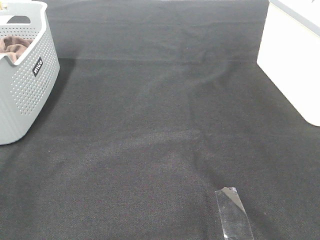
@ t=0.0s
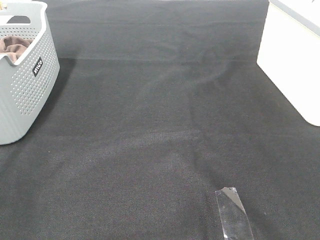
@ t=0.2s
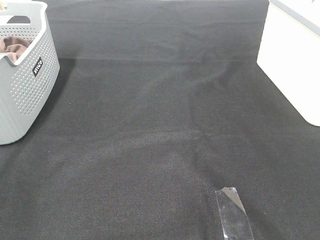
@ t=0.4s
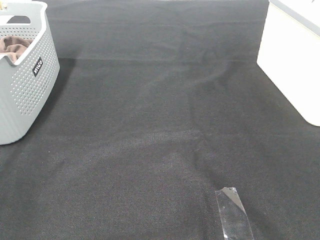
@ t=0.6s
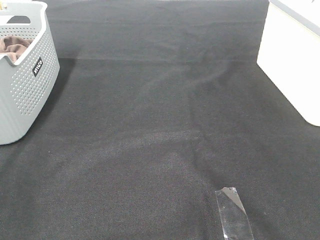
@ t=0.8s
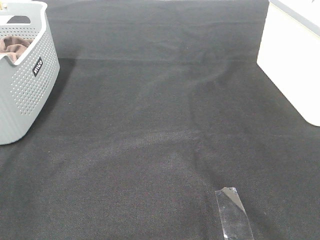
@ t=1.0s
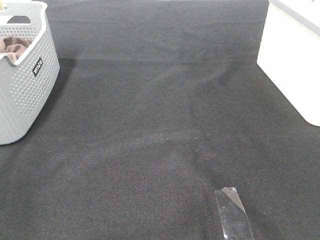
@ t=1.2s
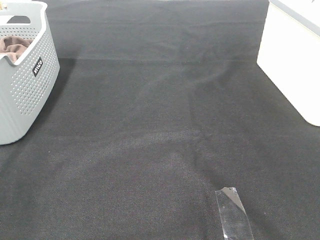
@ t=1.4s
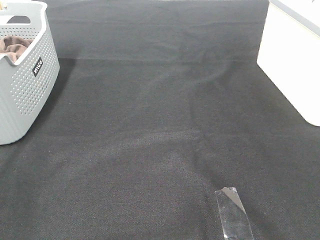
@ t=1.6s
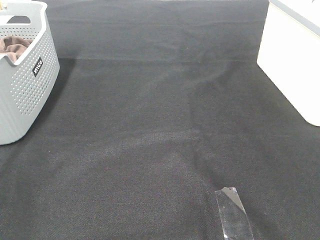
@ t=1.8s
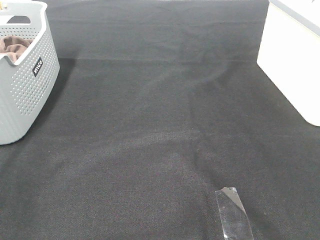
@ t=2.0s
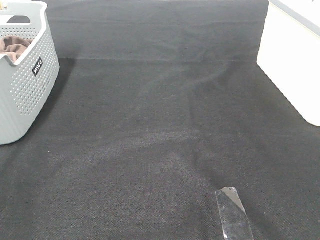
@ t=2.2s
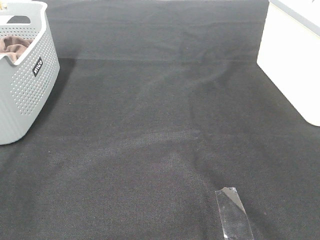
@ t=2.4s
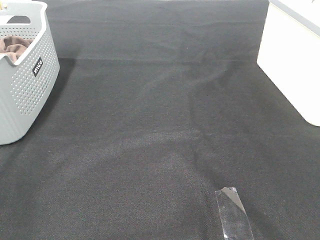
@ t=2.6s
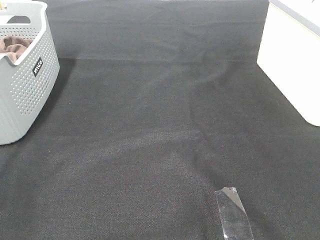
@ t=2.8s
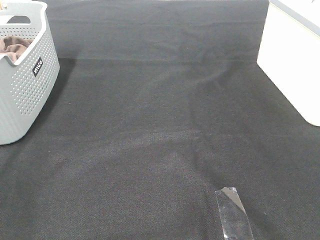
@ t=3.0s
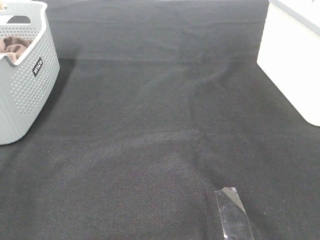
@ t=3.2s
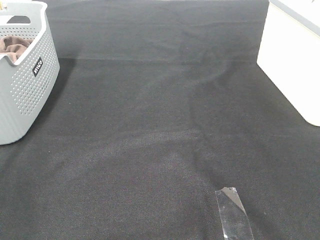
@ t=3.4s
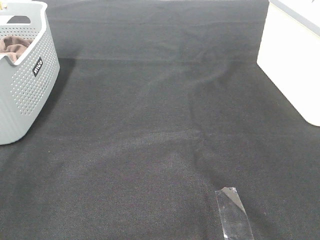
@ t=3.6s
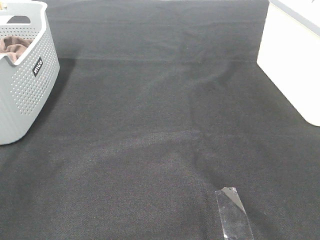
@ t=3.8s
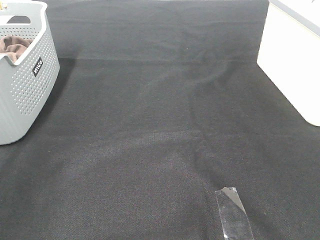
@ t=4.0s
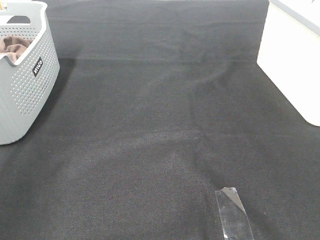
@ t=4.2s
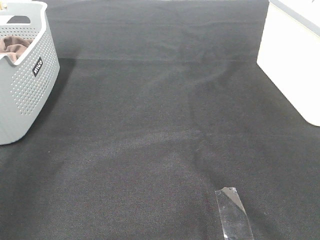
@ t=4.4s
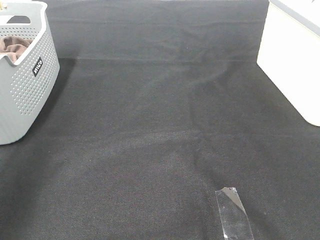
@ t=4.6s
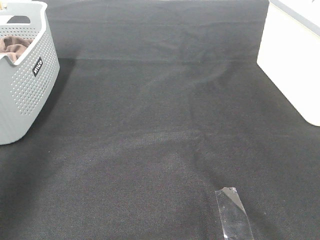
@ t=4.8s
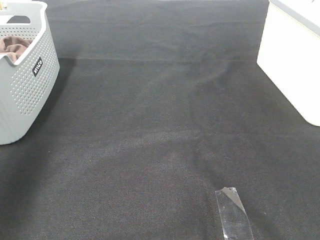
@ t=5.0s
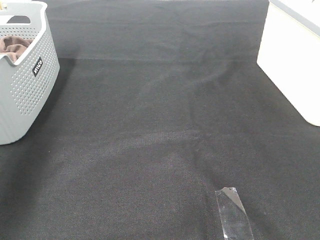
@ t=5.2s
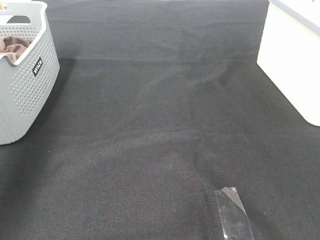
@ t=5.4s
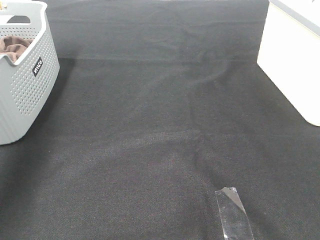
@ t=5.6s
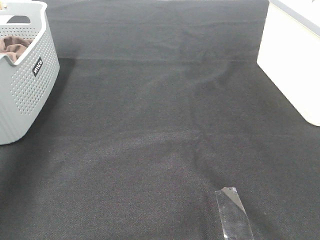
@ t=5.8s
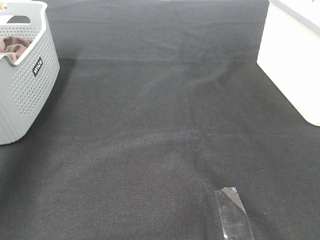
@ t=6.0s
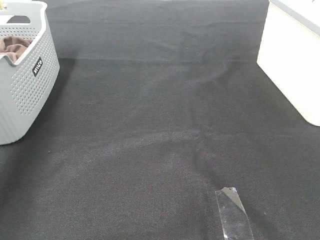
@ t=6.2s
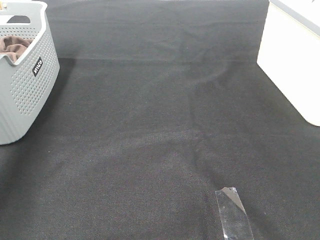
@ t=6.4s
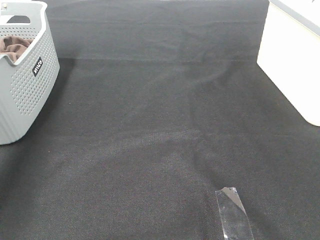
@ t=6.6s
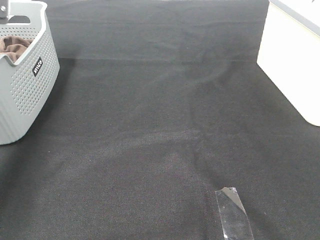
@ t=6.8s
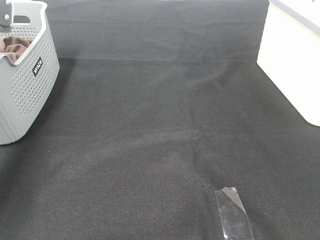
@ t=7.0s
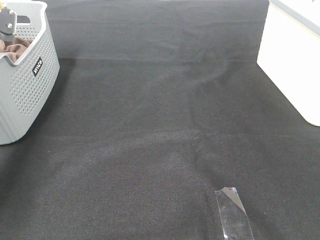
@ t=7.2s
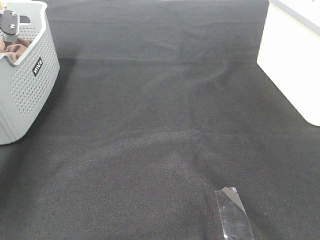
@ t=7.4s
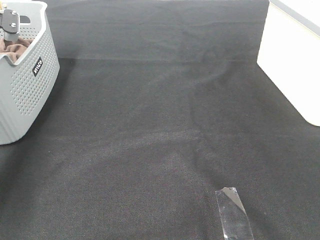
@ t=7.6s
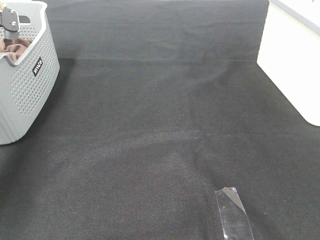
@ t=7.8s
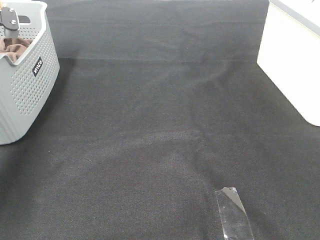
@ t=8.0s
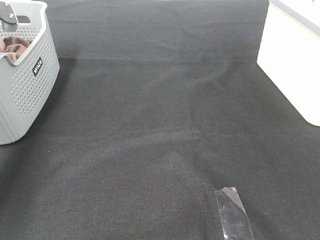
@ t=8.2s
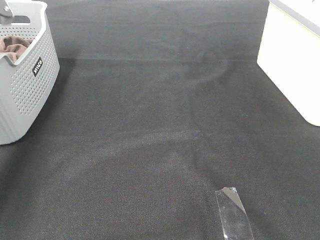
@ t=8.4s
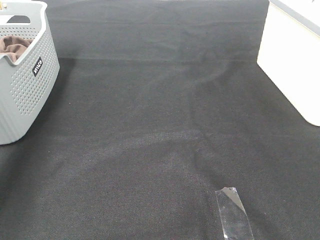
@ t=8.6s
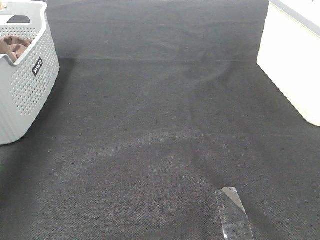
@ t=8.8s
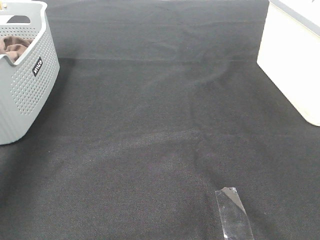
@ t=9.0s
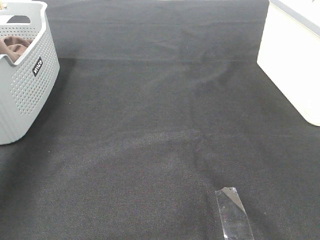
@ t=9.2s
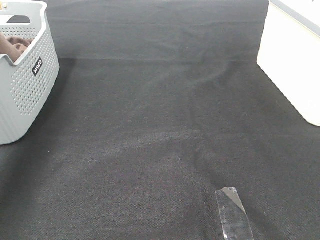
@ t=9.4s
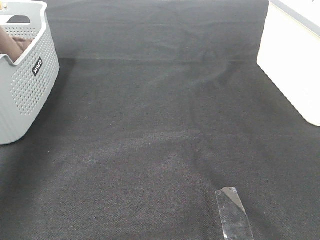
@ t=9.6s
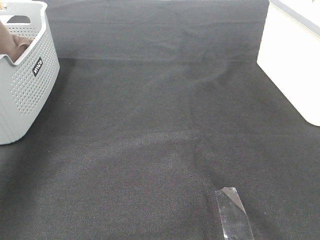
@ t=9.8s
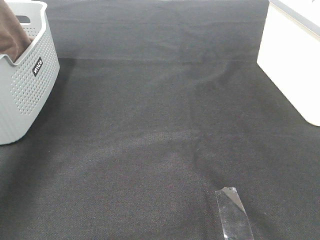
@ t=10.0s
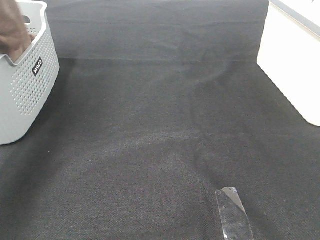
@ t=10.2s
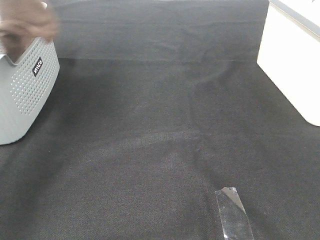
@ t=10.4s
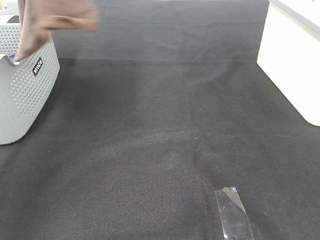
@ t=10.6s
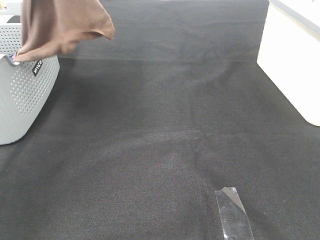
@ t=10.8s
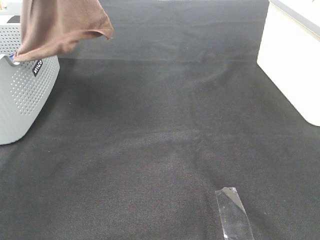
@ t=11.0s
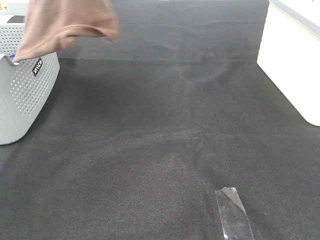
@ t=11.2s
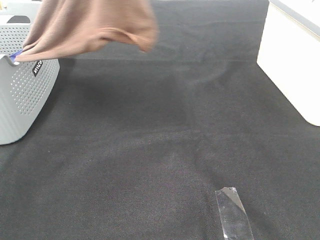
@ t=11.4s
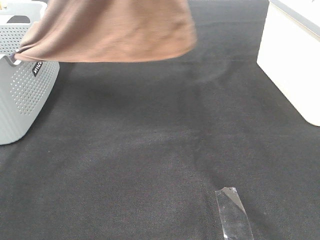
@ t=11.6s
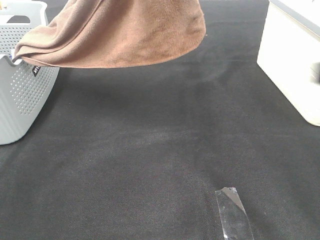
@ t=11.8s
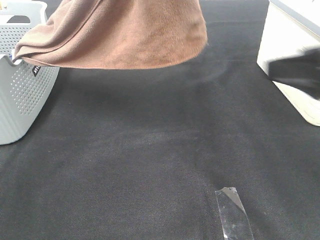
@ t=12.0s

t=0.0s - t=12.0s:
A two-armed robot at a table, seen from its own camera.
Task of the whole recording: Remove the towel and place it.
t=0.0s - t=3.0s: The two grippers keep their place.
t=4.4s - t=6.0s: The left gripper is displaced forward by some 25 cm.
t=9.0s - t=10.4s: The left gripper shifts about 20 cm upward, to the right and backward.
t=10.4s - t=12.0s: The right gripper shifts roughly 20 cm forward. The left gripper heads to the right, covering about 15 cm.

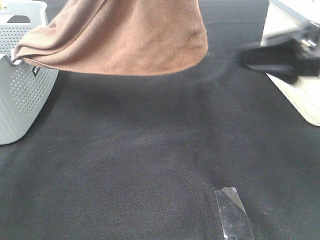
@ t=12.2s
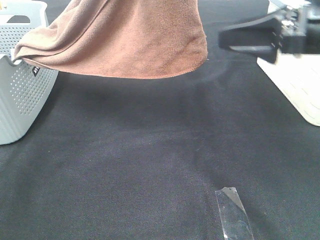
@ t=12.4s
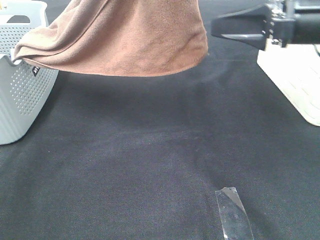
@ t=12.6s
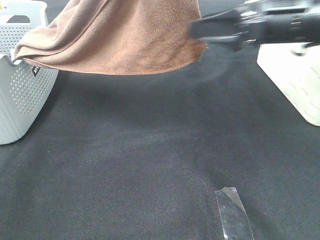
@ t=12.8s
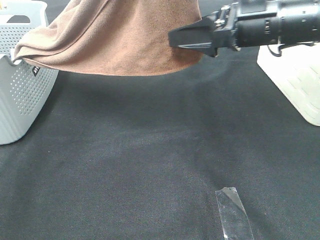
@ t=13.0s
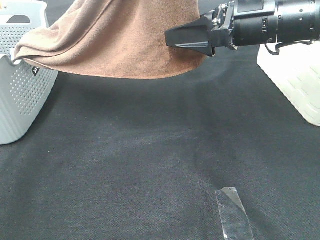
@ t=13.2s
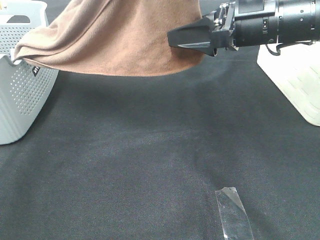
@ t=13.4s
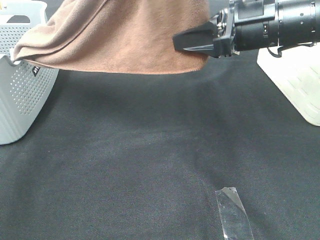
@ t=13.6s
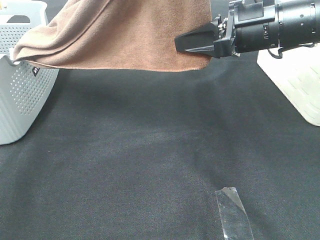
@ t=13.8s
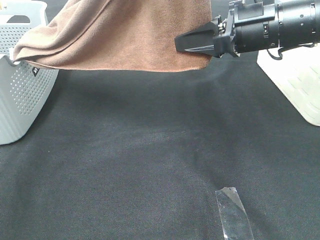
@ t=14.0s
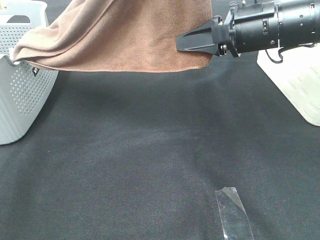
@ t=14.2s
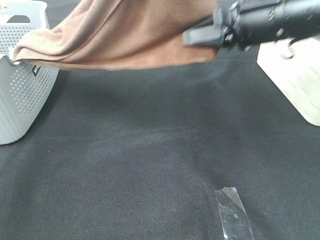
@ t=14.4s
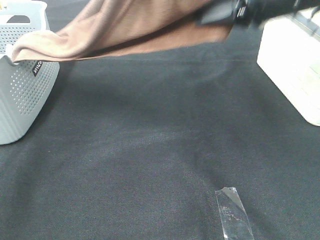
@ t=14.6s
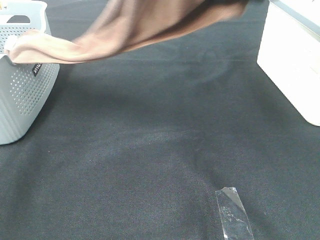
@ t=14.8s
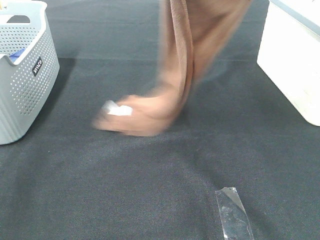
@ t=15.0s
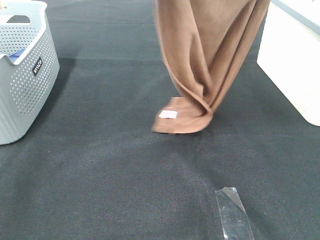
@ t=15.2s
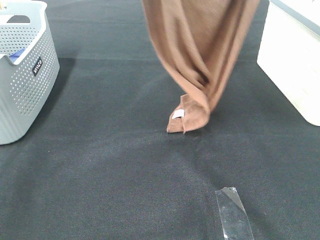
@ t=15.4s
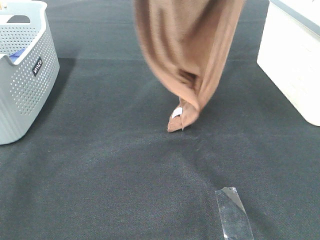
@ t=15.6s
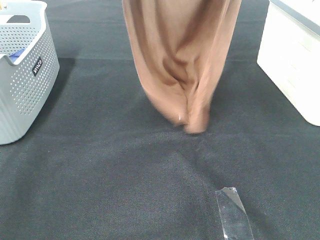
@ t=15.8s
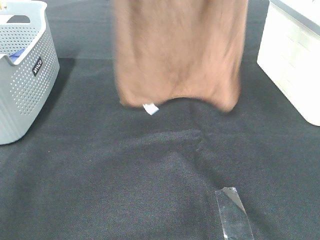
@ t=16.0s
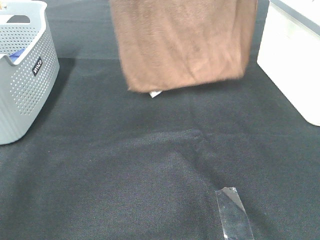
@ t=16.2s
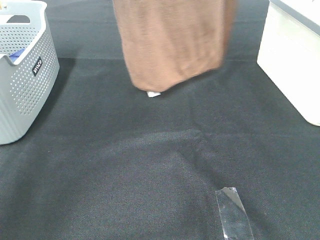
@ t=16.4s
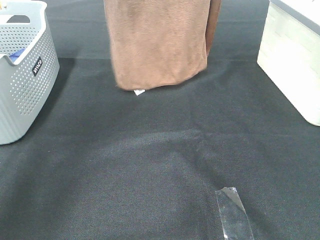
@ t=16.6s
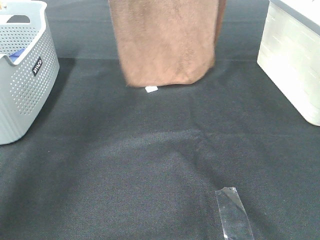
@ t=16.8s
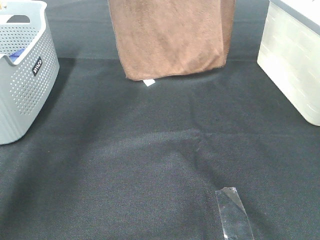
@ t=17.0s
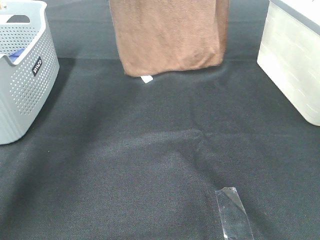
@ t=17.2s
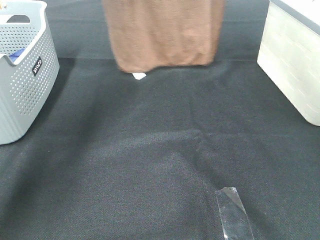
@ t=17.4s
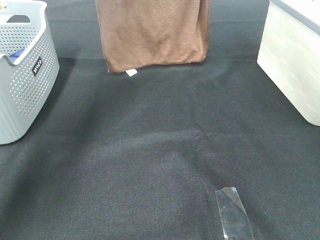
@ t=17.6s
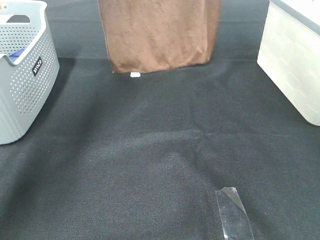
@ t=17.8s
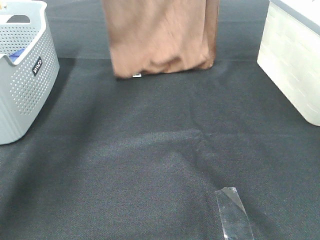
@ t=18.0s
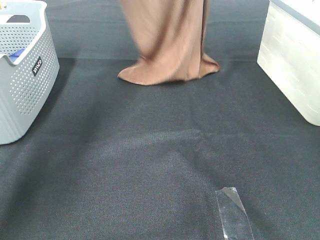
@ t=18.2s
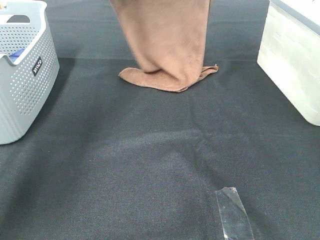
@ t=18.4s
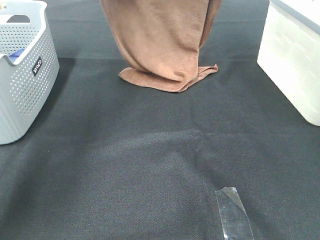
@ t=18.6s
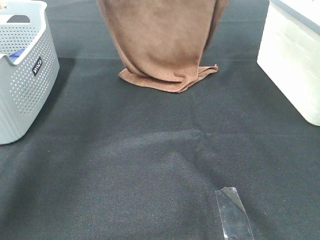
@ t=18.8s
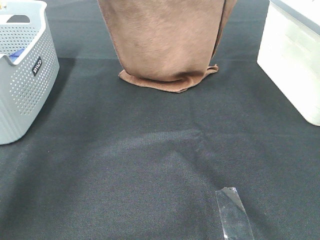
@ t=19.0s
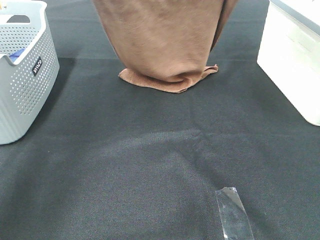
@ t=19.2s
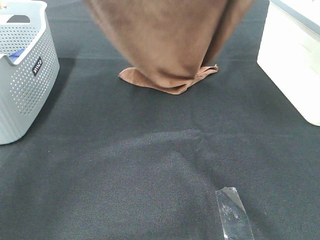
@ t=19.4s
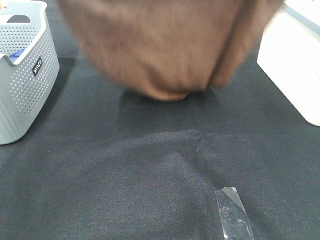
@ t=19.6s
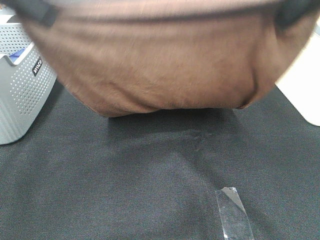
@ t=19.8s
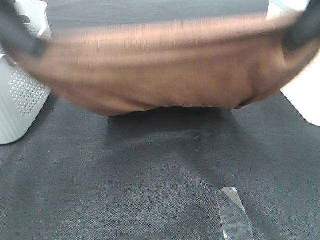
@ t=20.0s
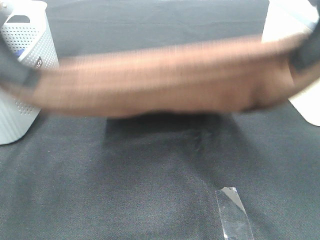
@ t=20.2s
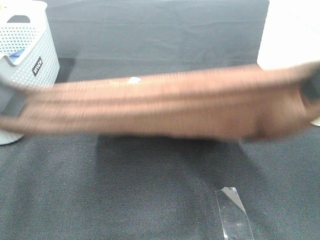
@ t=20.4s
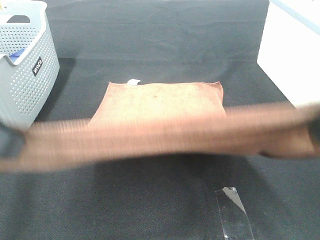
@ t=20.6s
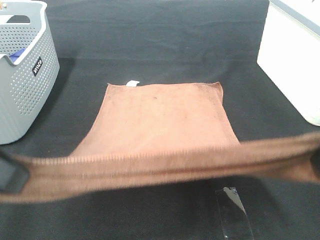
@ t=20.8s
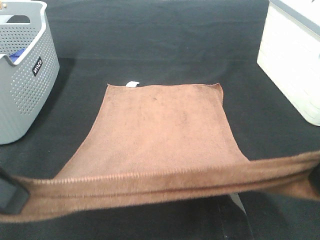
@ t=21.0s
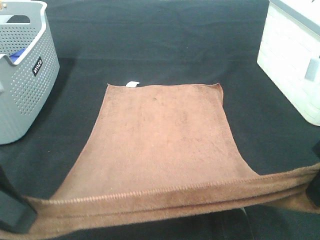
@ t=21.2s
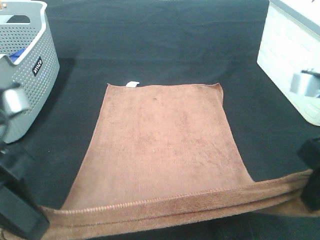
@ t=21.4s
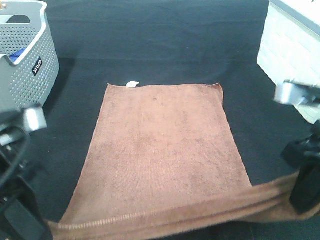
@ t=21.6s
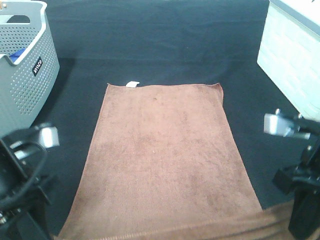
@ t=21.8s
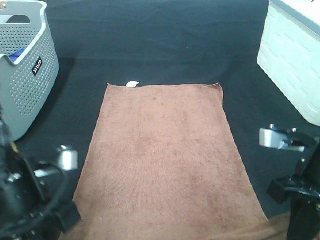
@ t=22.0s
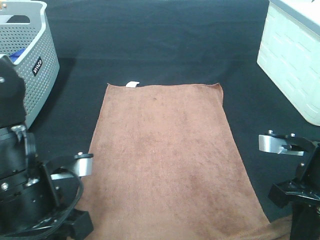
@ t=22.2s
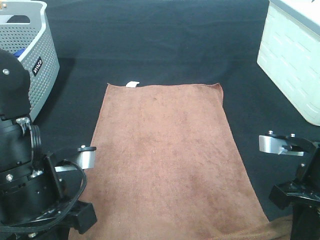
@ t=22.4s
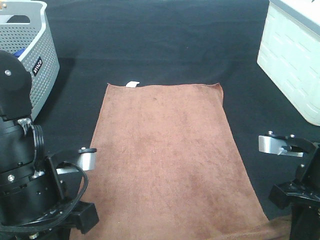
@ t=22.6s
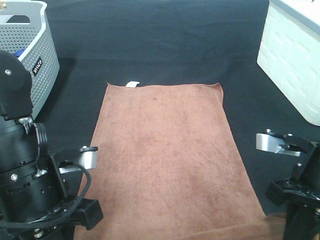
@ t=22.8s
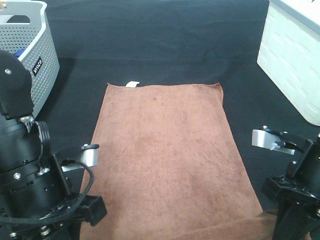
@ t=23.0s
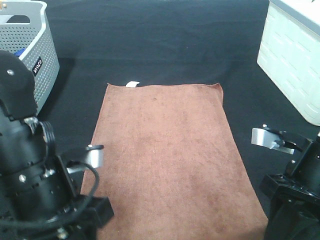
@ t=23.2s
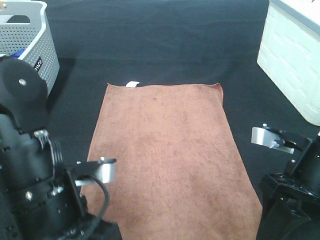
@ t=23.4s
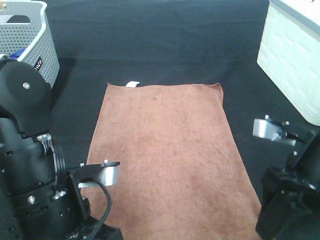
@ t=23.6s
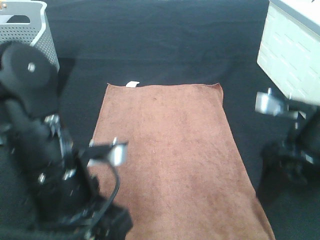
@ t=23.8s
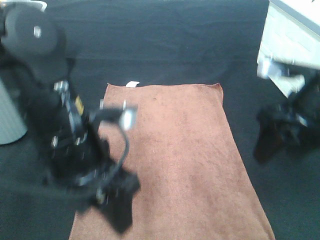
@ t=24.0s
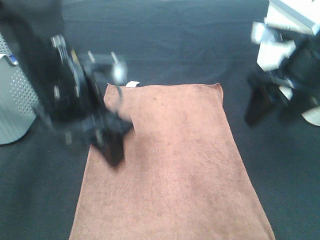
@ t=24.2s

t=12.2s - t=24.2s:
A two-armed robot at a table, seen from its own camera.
Task of the whole recording: Remove the towel and place it.
Step, t=13.4s - t=18.8s: Left hand: spread the brown towel flat on the table.
Step, t=13.4s - t=18.8s: Right hand: spread the brown towel flat on the table.
t=12.2s - t=13.8s: The right gripper travels forward and to the left by roughly 10 cm, and closes.
t=13.8s - t=15.2s: The right gripper goes about 20 cm upward.
t=15.2s - t=16.6s: The right gripper travels forward by about 15 cm. The left gripper goes some 15 cm forward and to the left.
t=16.6s - t=18.2s: The right gripper heads downward, covering some 5 cm. Meanwhile the left gripper moves downward and forward, roughly 10 cm.
t=18.2s - t=19.8s: The two grippers go approximately 25 cm backward.
t=19.8s - t=21.2s: The grippers both shift downward and backward by some 15 cm.
t=21.2s - t=22.6s: The left gripper is displaced downward and to the right by roughly 10 cm. The right gripper goes about 10 cm downward.
t=22.6s - t=24.2s: Both grippers move forward and upward, approximately 15 cm. The right gripper opens up. Meanwhile the left gripper opens.
